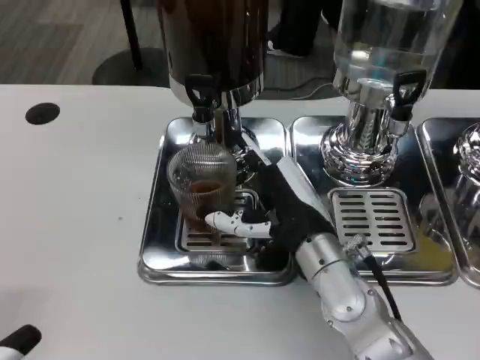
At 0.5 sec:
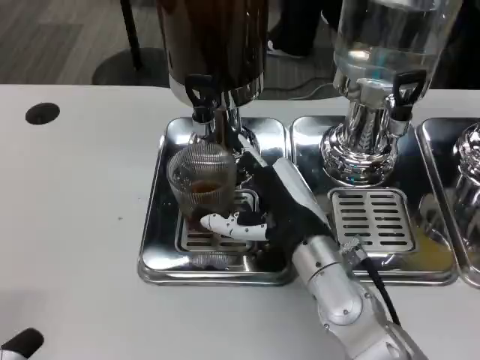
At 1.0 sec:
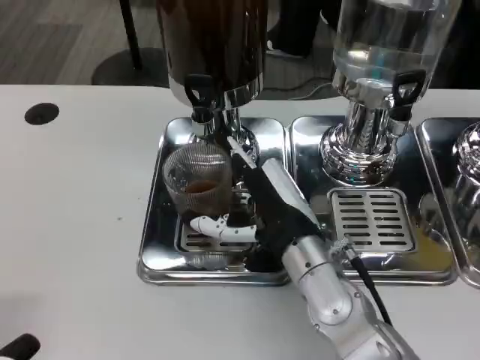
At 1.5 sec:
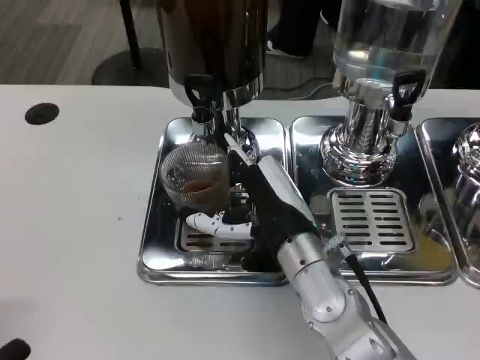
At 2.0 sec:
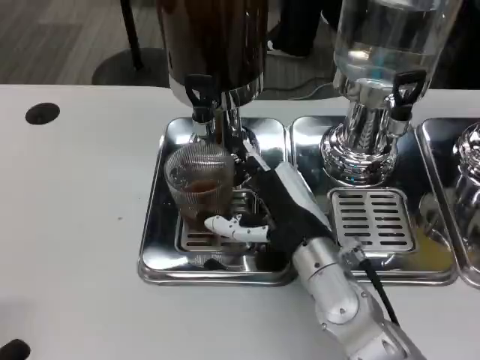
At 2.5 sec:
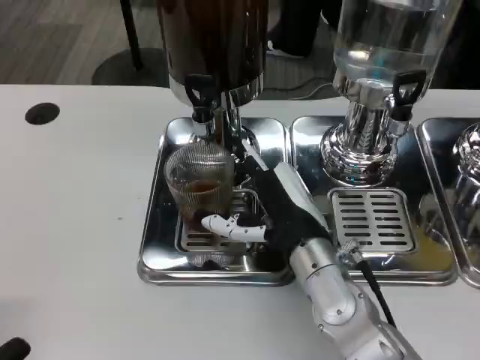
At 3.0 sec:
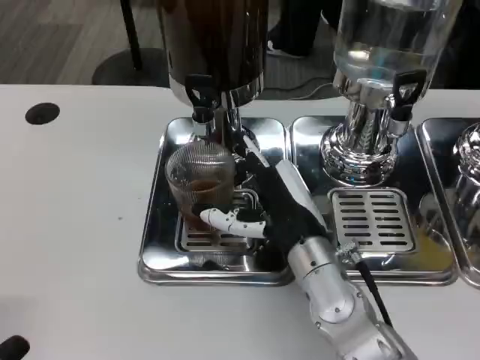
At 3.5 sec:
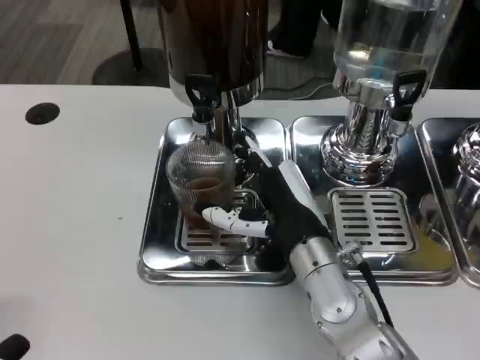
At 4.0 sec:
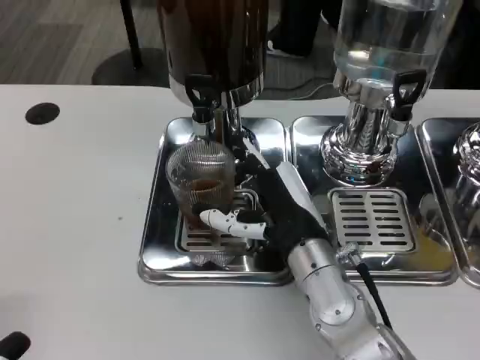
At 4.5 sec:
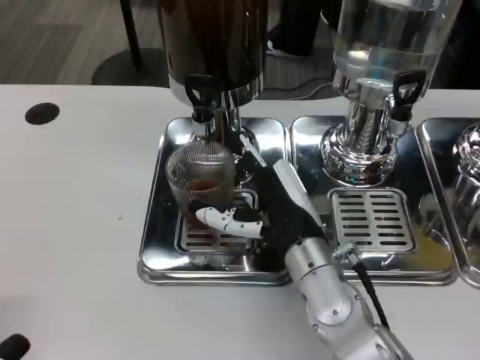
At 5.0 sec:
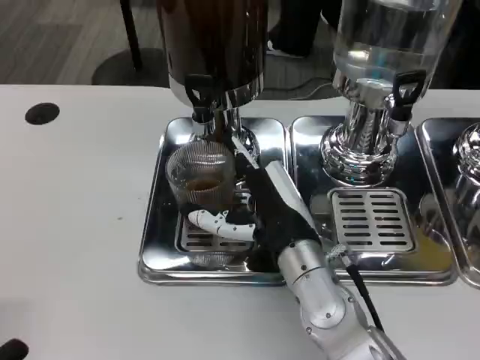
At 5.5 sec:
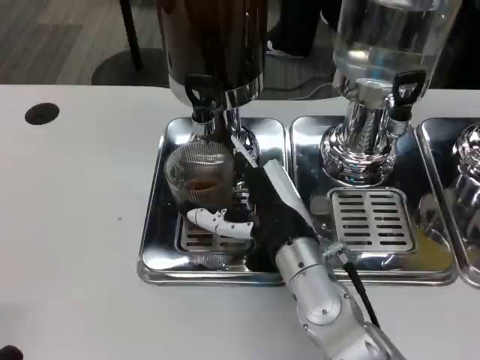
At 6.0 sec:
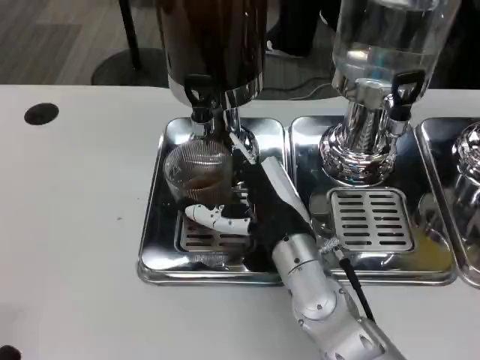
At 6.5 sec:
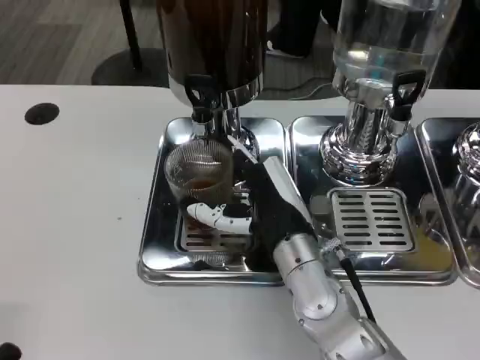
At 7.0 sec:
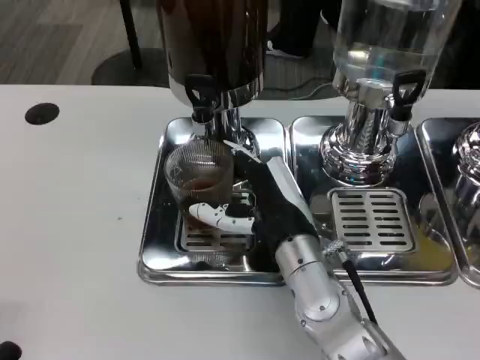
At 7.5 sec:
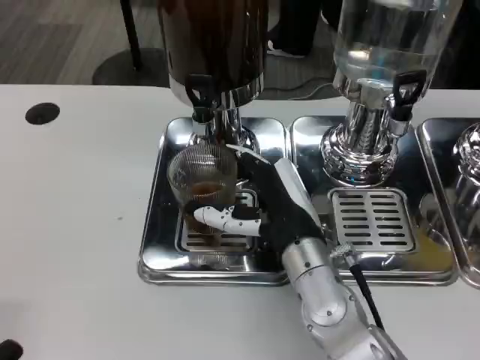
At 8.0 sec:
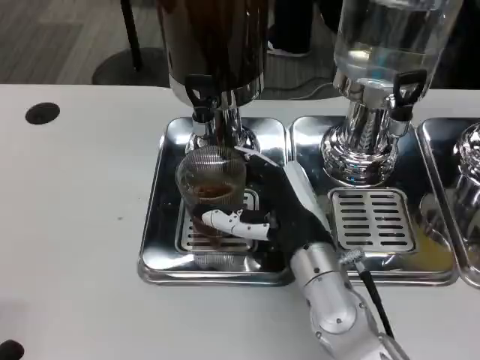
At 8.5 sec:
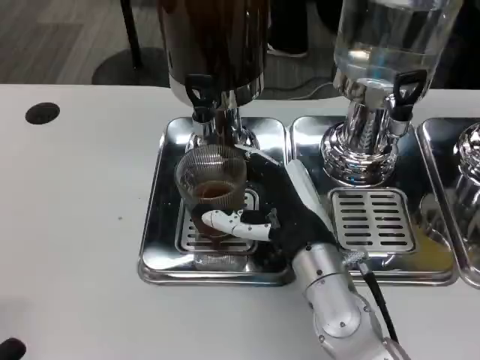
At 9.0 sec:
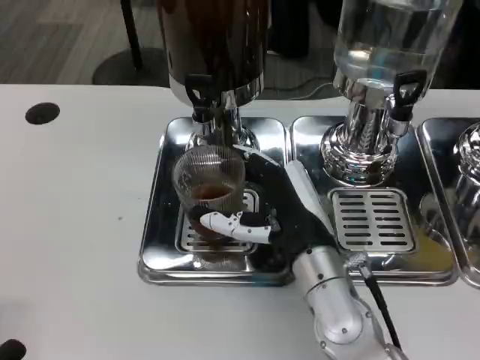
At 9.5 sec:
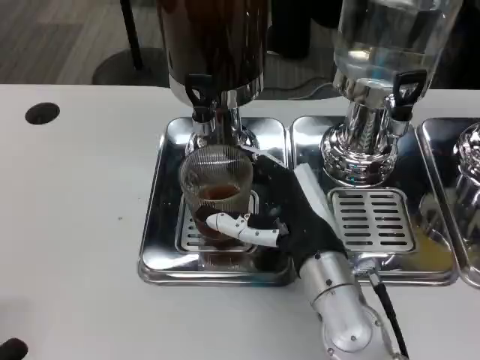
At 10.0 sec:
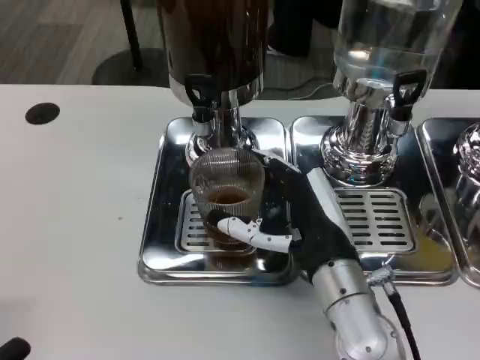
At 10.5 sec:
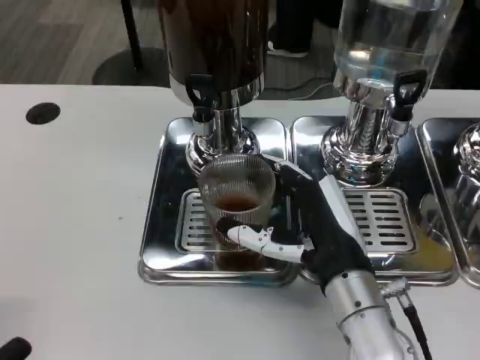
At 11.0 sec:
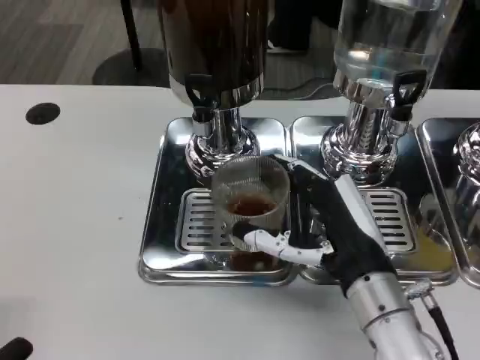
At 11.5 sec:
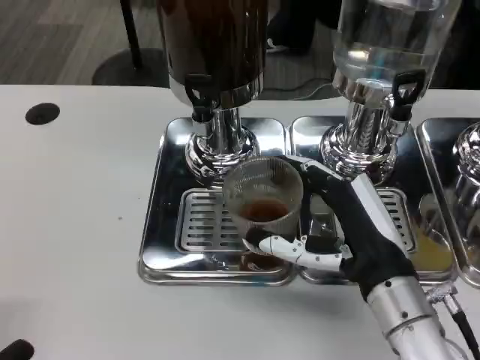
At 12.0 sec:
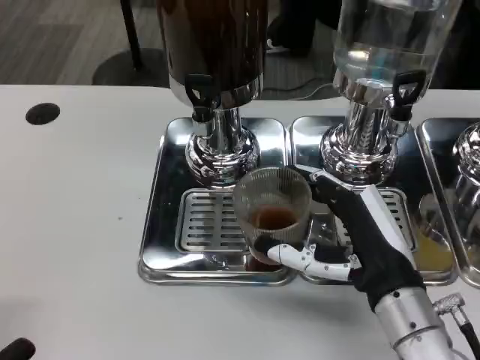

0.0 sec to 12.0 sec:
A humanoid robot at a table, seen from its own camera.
Task of the whole recording: Grasp the cup under the faucet to collect the drink, then remove the cup.
0.0 sec to 10.0 sec: The hands move only a little.
10.0 sec to 12.0 sec: The right hand moves to the right, roughly 5 cm.

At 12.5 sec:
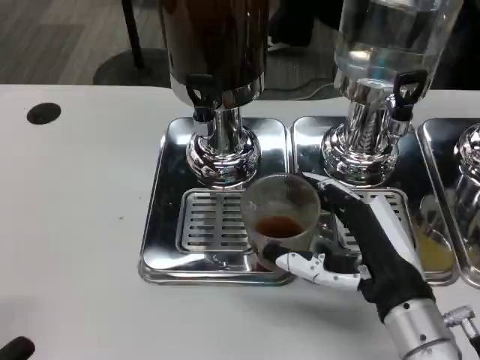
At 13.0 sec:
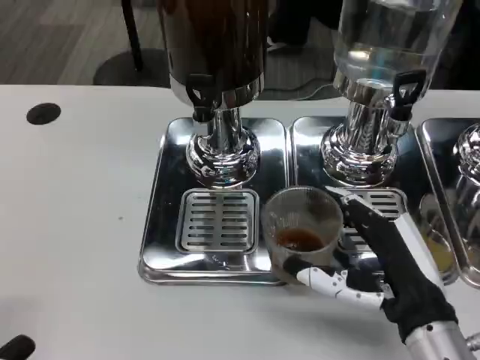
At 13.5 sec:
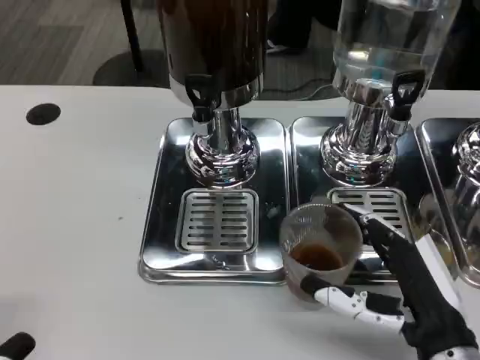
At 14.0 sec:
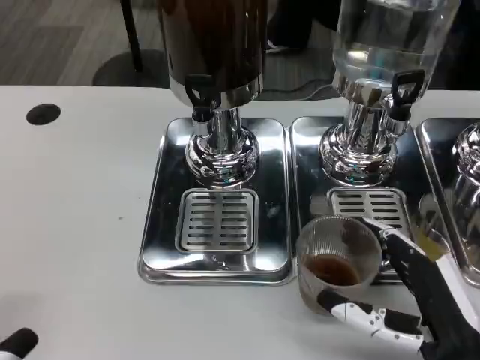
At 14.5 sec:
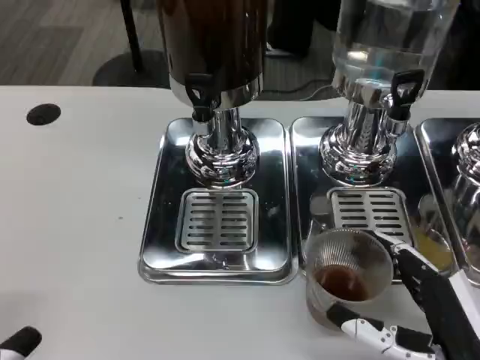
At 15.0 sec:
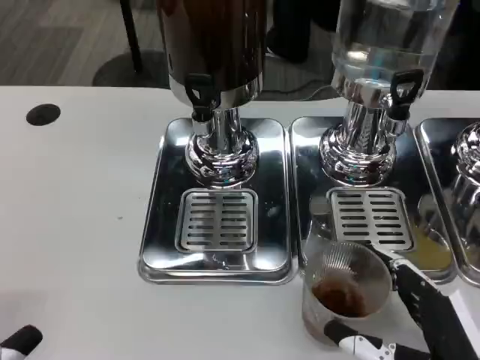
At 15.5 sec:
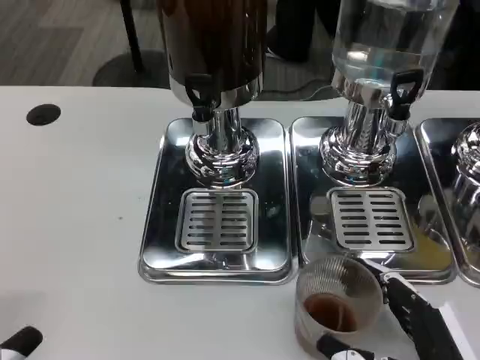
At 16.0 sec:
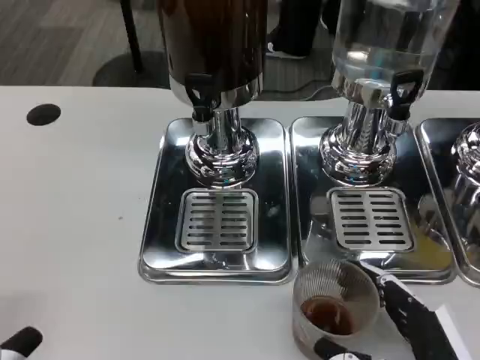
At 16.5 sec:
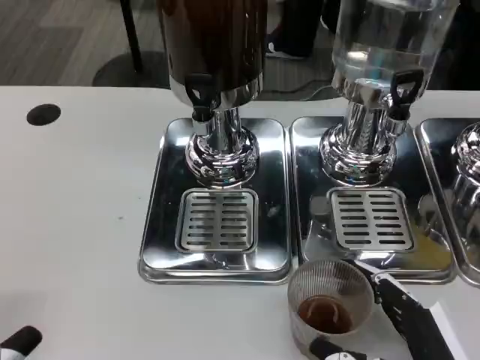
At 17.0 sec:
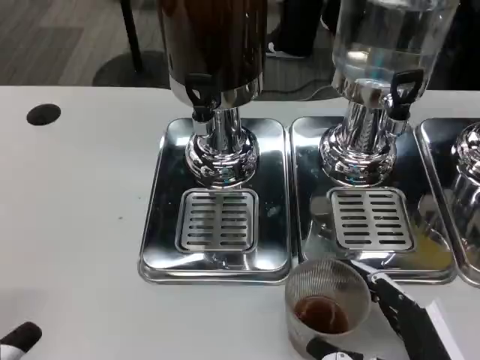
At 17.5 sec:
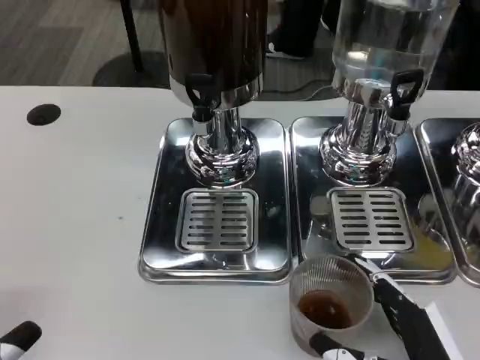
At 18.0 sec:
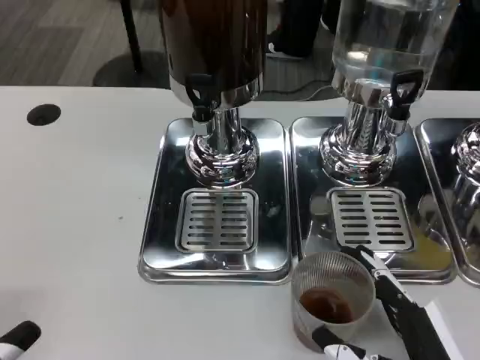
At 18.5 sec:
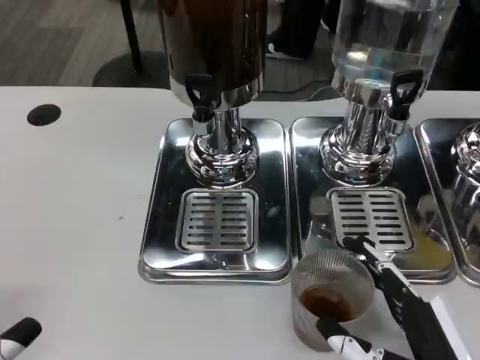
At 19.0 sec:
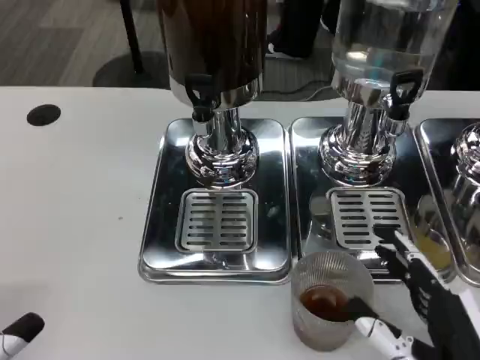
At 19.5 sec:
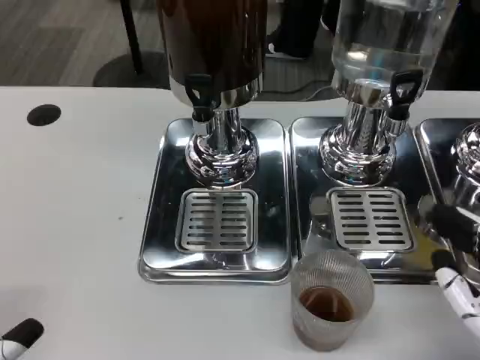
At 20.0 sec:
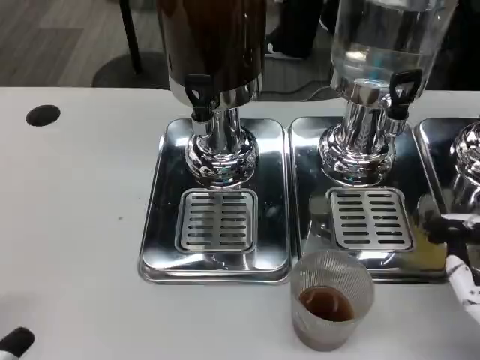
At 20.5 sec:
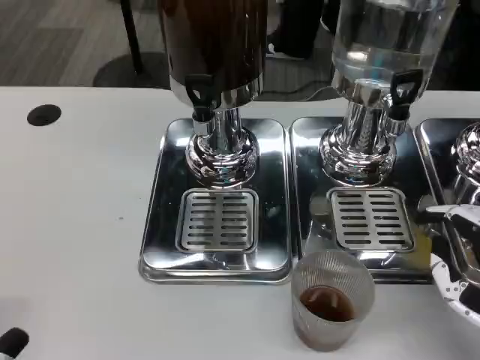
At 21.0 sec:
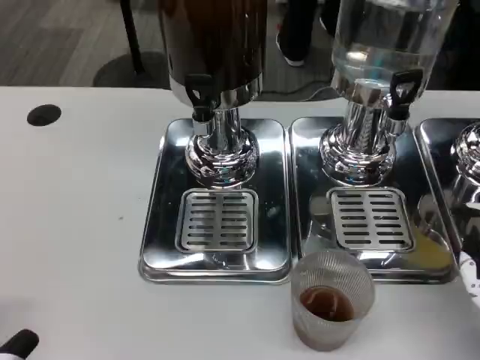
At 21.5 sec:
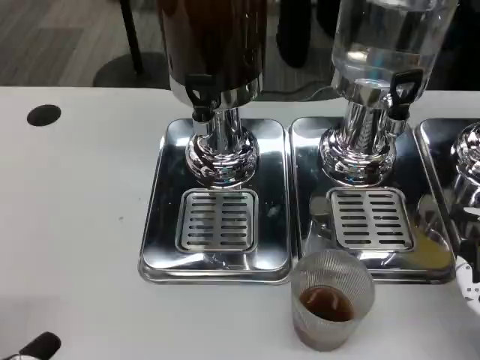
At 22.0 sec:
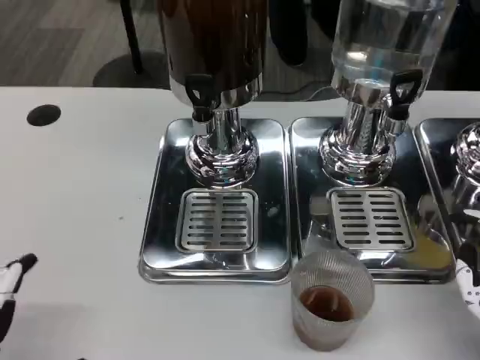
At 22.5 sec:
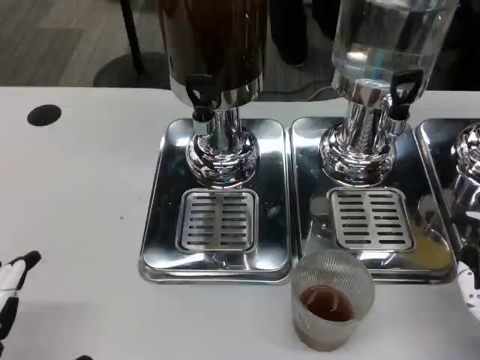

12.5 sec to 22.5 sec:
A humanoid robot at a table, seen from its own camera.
Task of the whole recording: Grasp the cup under the faucet to collect the drink, then remove the cup.
12.5 sec to 14.5 sec: The right hand moves backward, approximately 5 cm.
14.5 sec to 16.5 sec: There are only small adjustments of the hands.
16.5 sec to 18.5 sec: Both hands stay put.
18.5 sec to 20.5 sec: The right hand moves to the right, some 5 cm.
20.5 sec to 22.5 sec: The hands stay close to where they were, moving slightly.

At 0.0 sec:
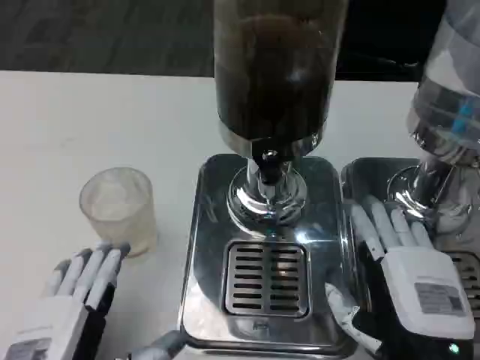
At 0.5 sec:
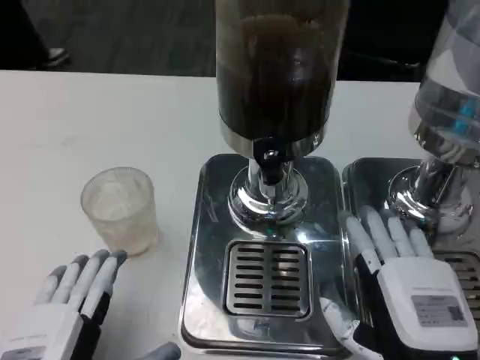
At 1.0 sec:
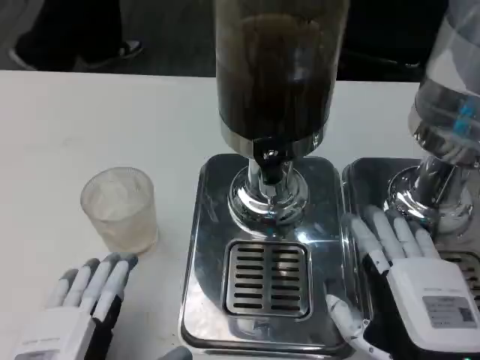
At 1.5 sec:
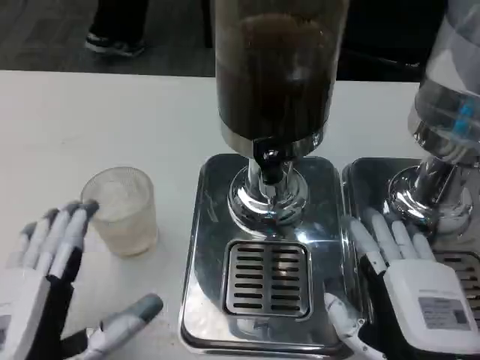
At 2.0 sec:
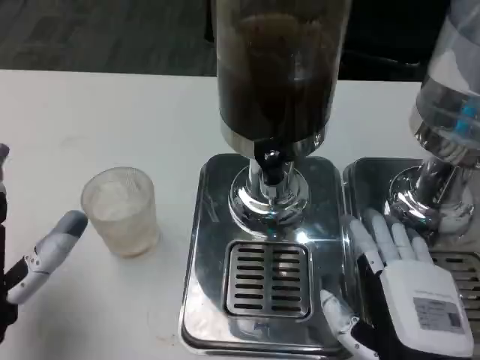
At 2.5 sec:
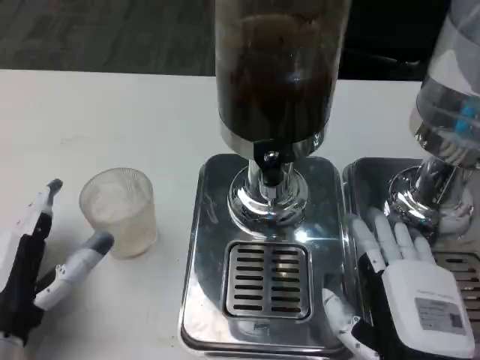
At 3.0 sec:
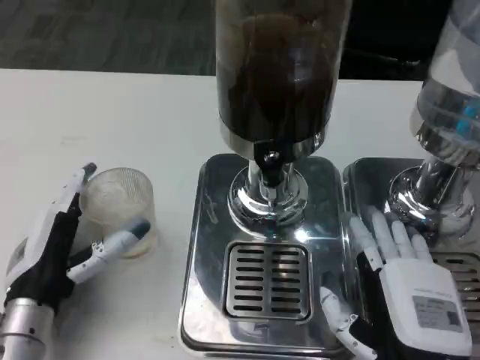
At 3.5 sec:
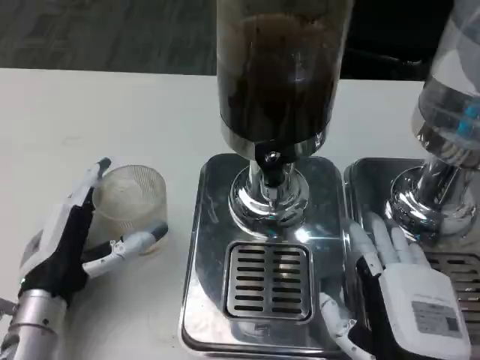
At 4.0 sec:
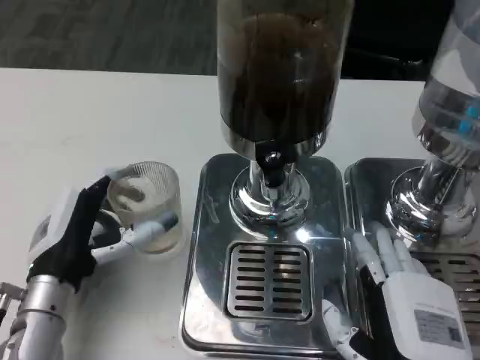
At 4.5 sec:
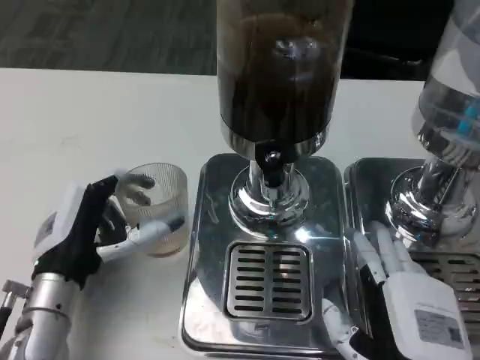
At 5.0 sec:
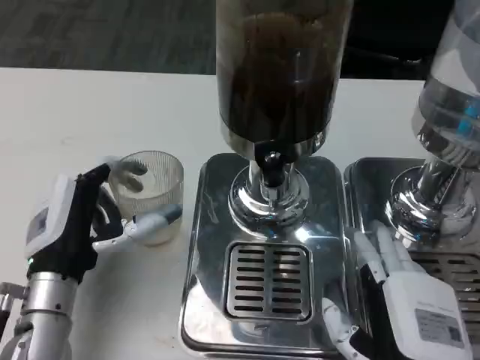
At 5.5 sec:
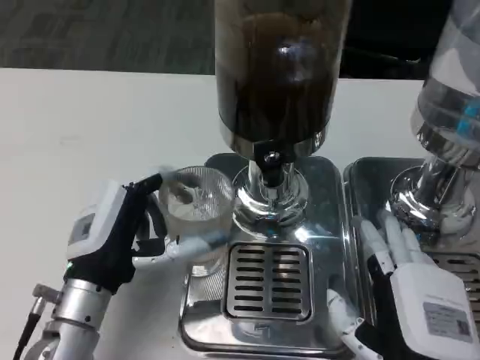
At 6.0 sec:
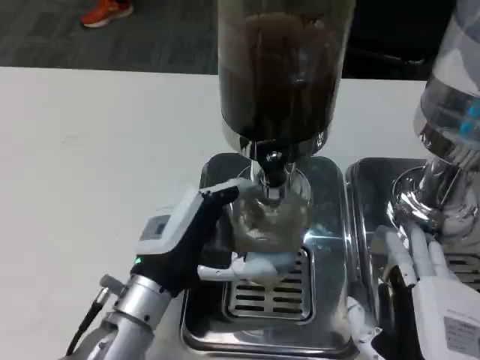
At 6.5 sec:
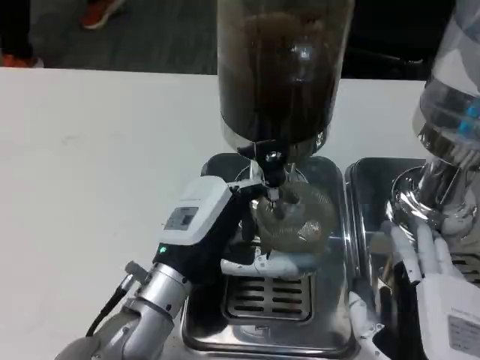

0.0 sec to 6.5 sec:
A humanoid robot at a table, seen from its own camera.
Task of the whole recording: Grasp the cup under the faucet to collect the drink, then remove the cup.
0.0 sec to 2.0 sec: The left hand is displaced forward by approximately 5 cm.
2.0 sec to 4.5 sec: The left hand travels forward by approximately 10 cm.
4.5 sec to 6.5 sec: The left hand heads to the right, covering approximately 10 cm.
